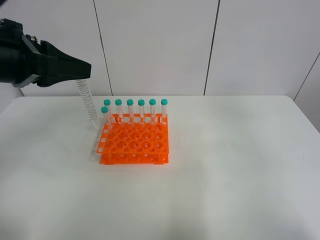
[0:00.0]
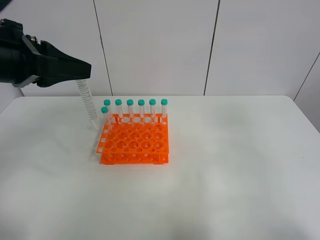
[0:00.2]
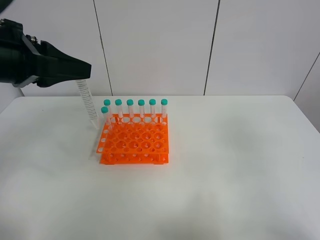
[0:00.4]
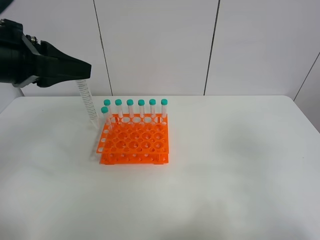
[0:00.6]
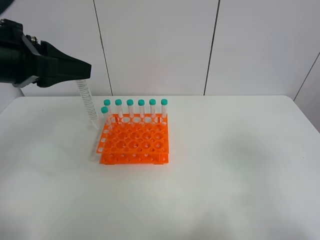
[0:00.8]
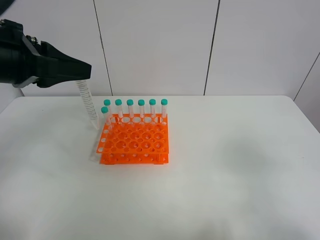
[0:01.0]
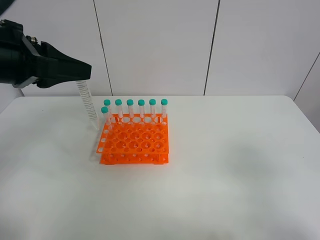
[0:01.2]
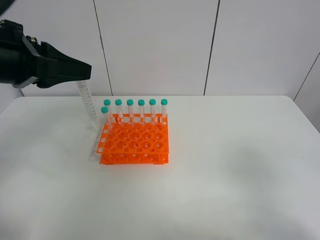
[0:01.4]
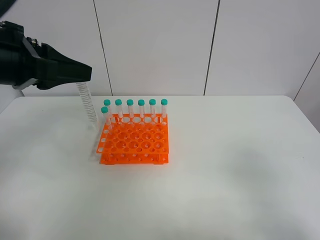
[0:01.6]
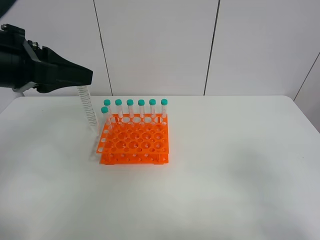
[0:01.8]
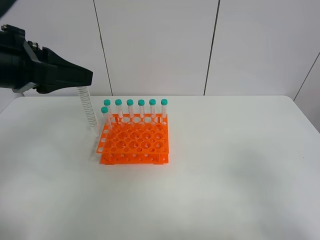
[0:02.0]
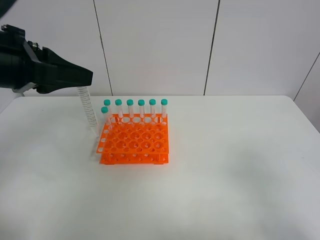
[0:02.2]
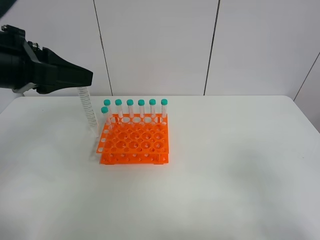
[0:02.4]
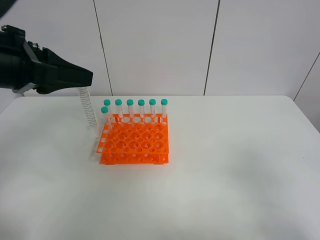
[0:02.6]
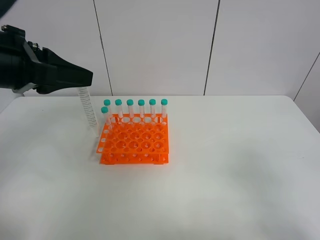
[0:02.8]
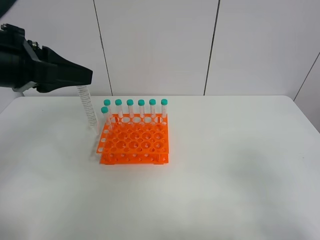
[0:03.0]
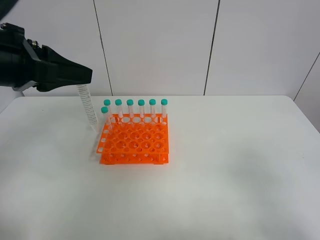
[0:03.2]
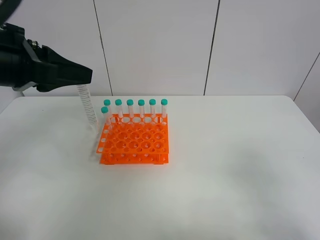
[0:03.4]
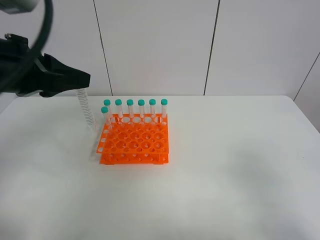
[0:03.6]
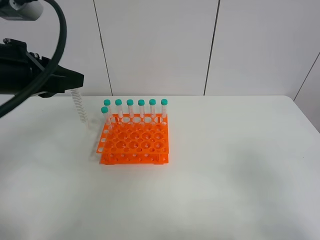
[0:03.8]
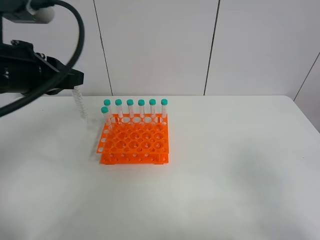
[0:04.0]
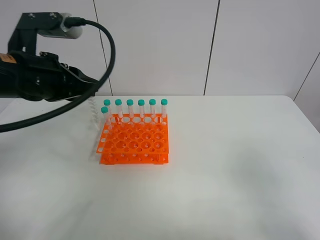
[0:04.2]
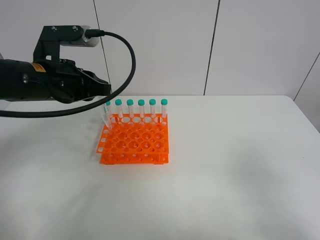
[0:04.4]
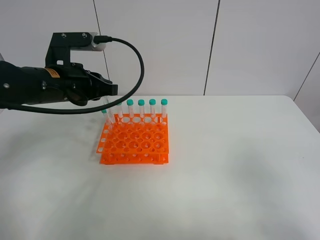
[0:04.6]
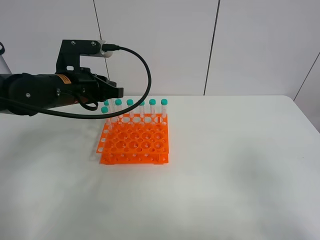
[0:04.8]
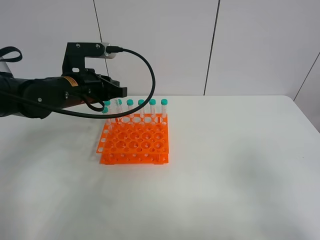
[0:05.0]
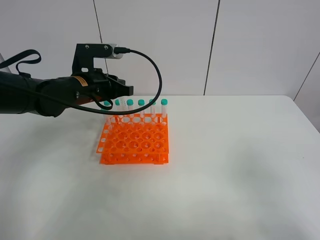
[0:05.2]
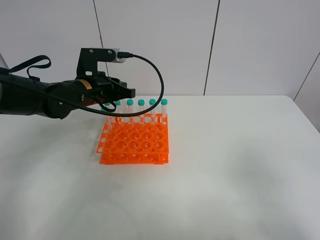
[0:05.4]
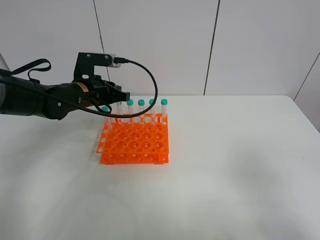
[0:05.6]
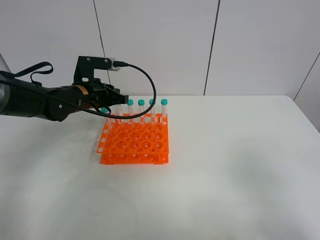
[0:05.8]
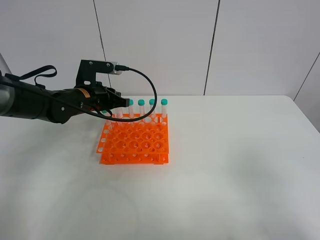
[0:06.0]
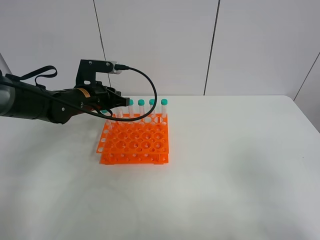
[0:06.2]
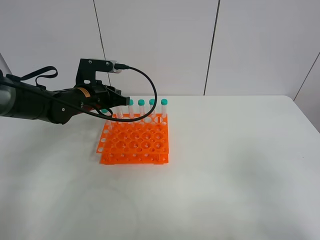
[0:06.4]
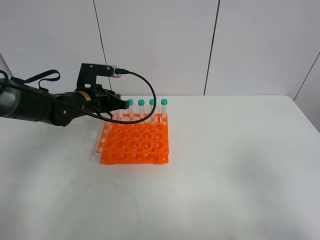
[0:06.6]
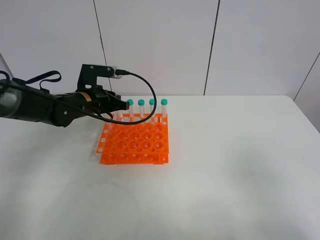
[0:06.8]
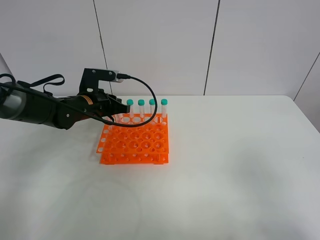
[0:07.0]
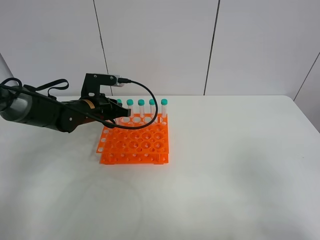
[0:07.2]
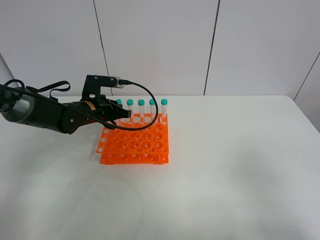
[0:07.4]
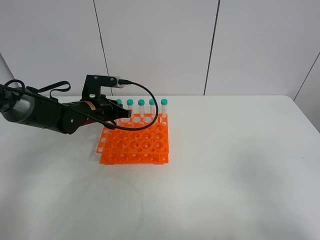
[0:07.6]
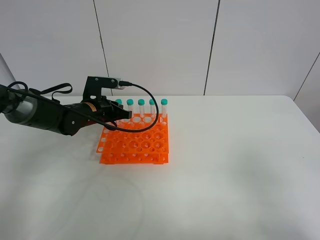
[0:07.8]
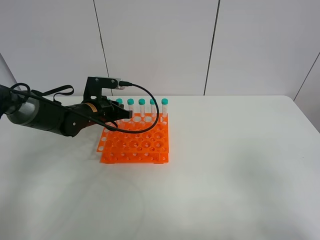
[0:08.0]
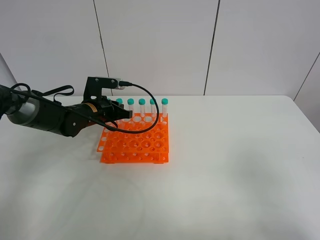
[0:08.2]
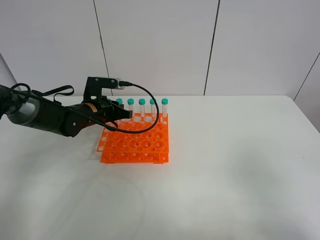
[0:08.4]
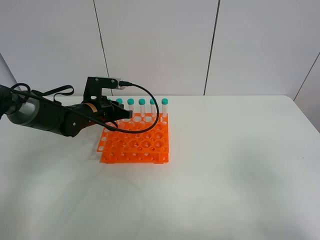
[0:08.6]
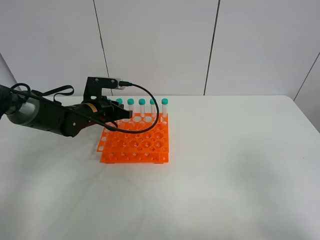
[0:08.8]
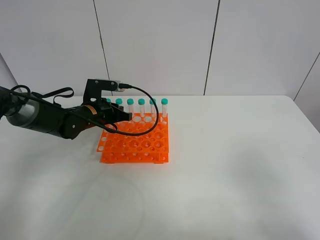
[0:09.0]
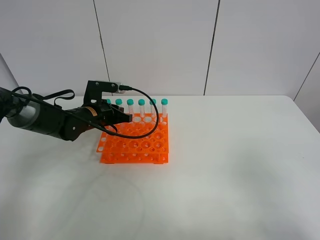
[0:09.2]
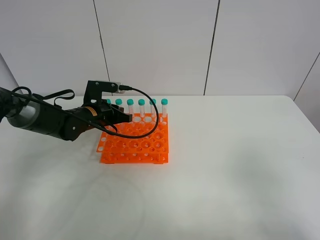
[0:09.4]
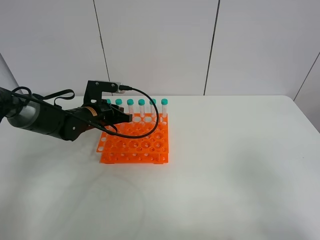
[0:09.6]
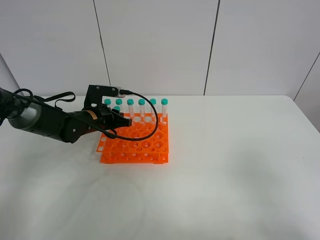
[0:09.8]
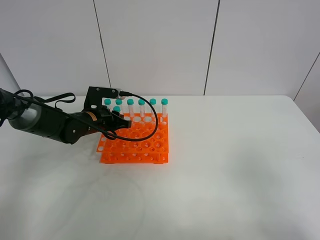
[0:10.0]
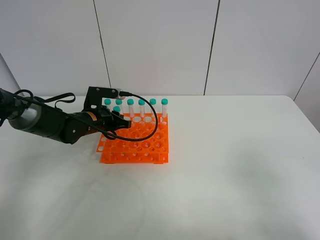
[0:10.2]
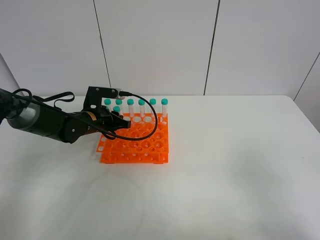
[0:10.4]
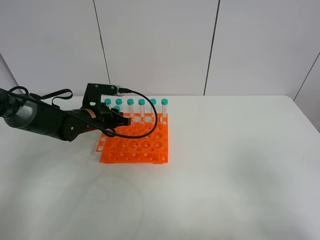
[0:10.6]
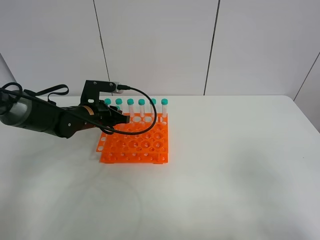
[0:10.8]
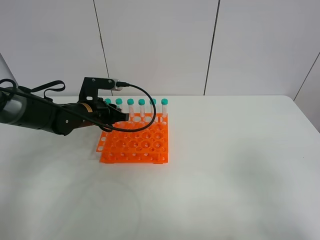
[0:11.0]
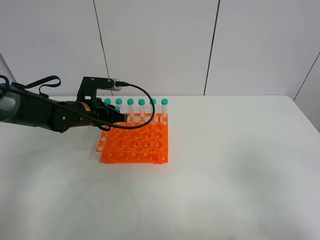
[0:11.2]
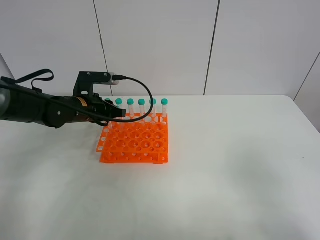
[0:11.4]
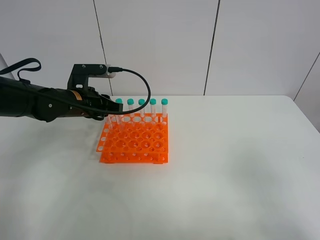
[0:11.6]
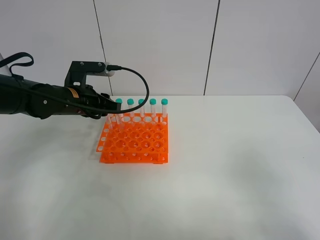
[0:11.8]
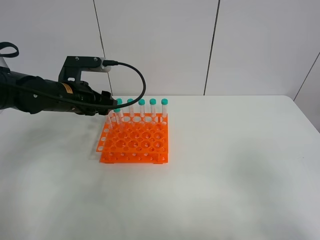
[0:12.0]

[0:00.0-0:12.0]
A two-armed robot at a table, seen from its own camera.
Task of the whole recording: Put the test tube on the table back onto the test tube rack.
0:00.0 to 0:01.6: The right gripper shifts about 15 cm backward and downward.
0:01.6 to 0:03.0: Both grippers stay put.
0:03.0 to 0:04.4: The left gripper is displaced downward and forward by some 10 cm.
0:04.4 to 0:06.0: The left gripper goes roughly 15 cm downward and forward.
0:06.0 to 0:07.6: There are only small adjustments of the grippers.
0:07.6 to 0:09.0: Neither gripper changes place.
0:09.0 to 0:10.4: There are only small adjustments of the grippers.
0:10.4 to 0:12.0: The left gripper shifts some 10 cm upward, and opens.

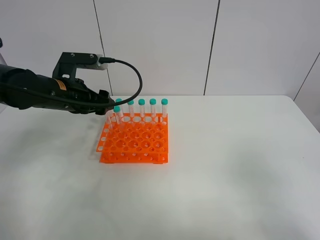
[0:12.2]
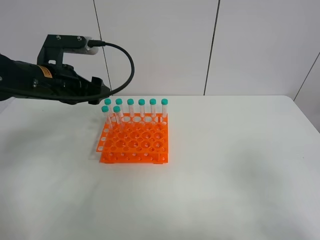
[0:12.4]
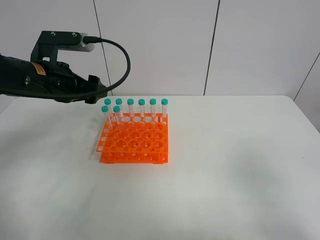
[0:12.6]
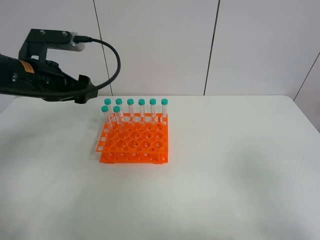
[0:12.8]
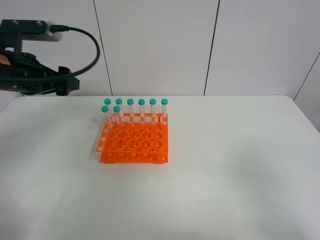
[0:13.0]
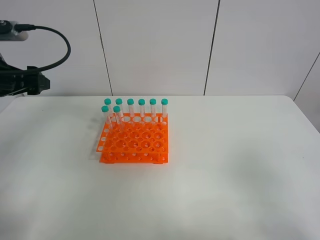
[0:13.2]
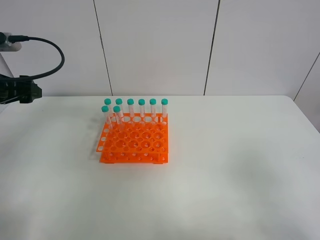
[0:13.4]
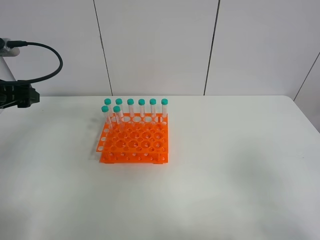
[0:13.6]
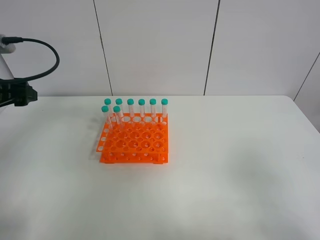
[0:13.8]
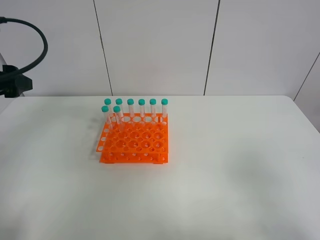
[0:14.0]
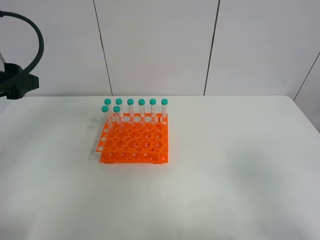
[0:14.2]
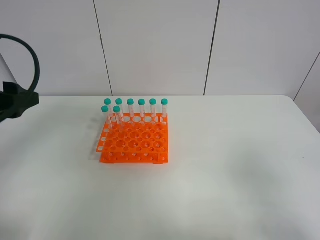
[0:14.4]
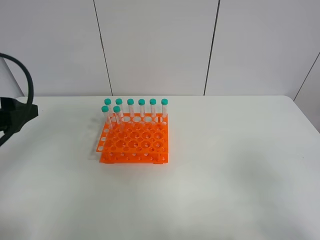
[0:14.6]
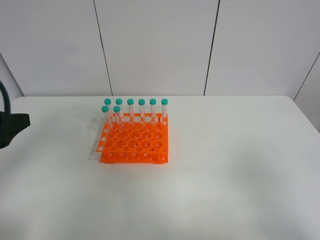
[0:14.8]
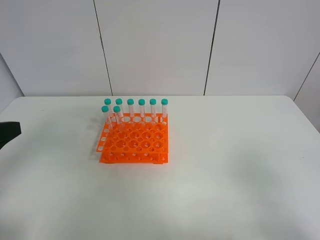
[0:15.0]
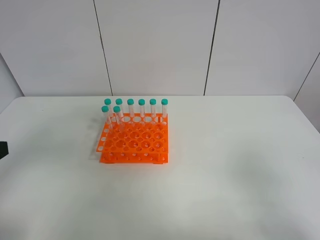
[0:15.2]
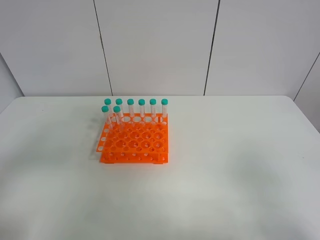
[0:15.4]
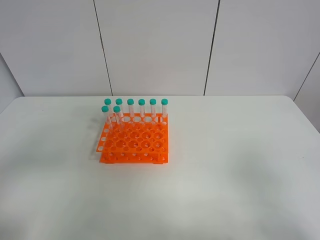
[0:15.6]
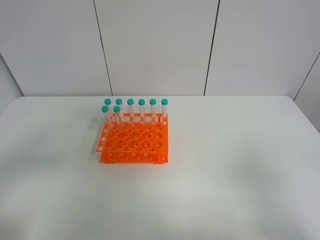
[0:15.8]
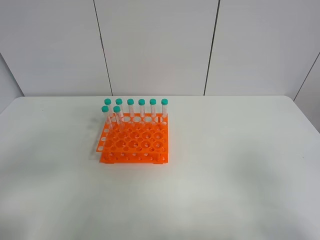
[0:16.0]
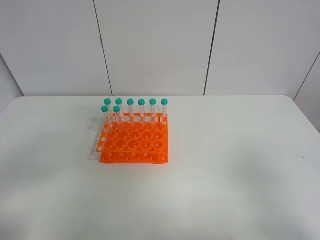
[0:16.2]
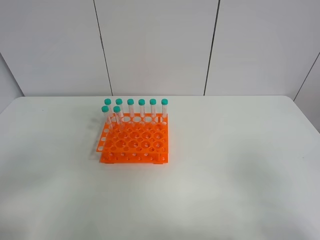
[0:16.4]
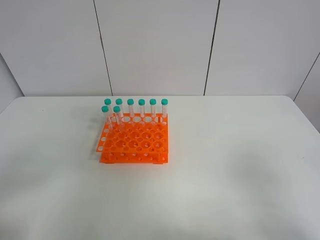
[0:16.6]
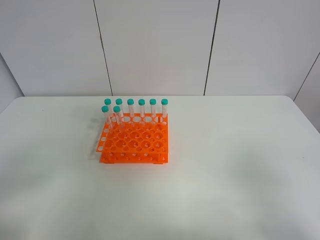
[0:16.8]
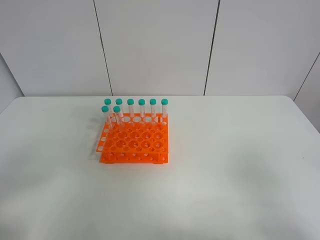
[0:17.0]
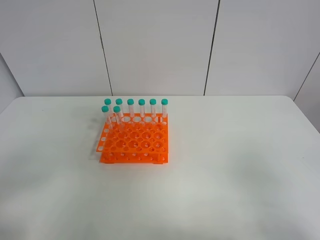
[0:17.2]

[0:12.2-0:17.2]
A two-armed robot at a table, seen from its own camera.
Task of the whole recording: Put the test tube on the table back onto the test tube rack.
0:12.2 to 0:13.8: The left gripper travels to the left, backward and upward by approximately 15 cm.
0:13.8 to 0:15.6: The left gripper goes roughly 20 cm backward.
